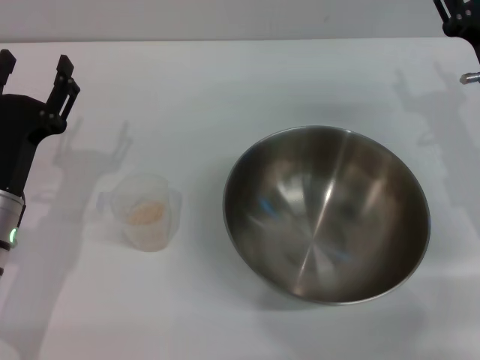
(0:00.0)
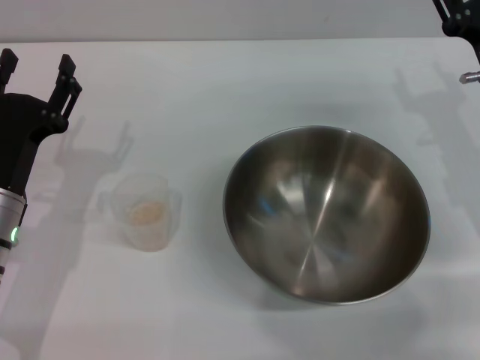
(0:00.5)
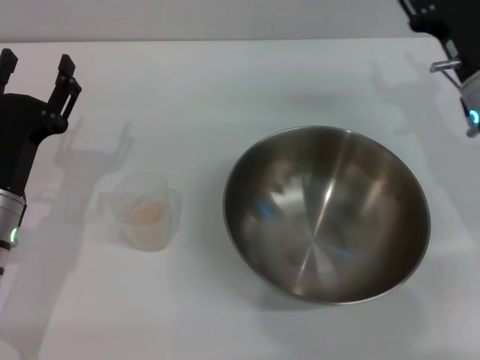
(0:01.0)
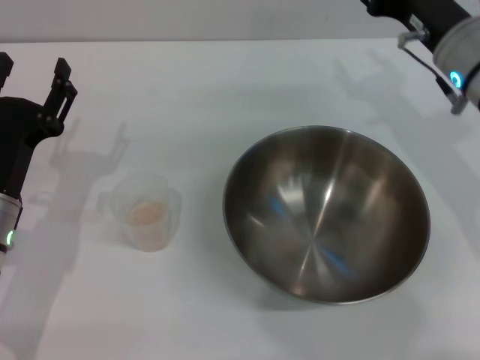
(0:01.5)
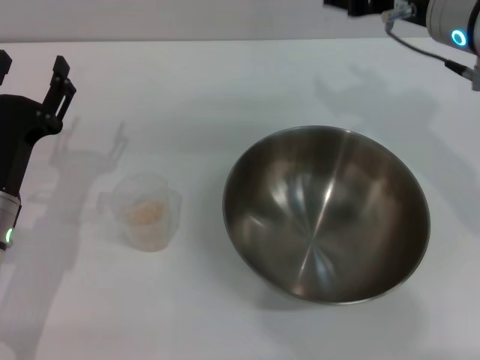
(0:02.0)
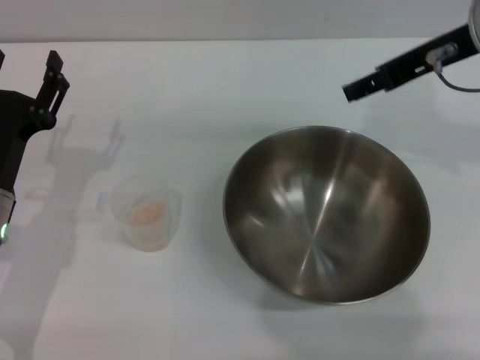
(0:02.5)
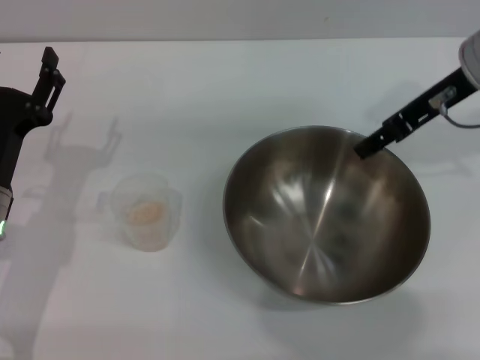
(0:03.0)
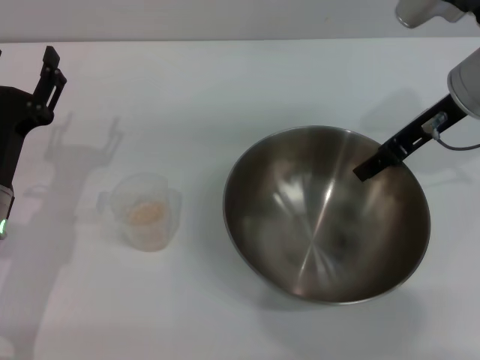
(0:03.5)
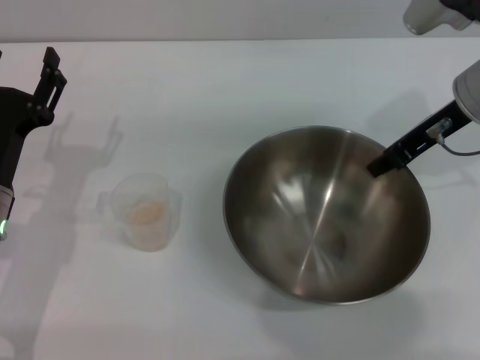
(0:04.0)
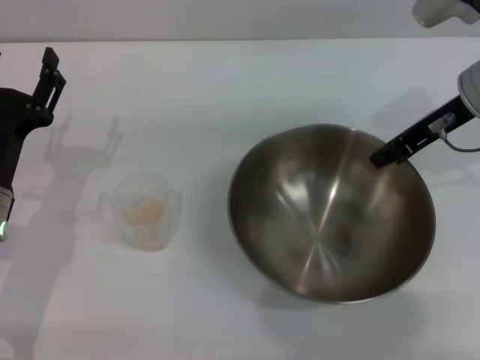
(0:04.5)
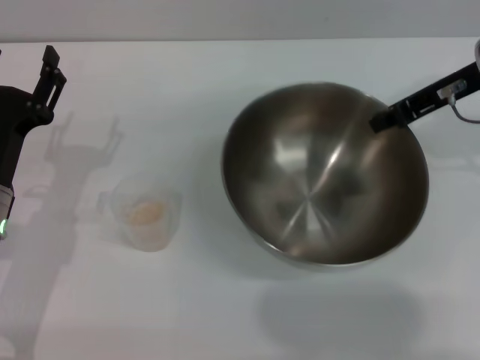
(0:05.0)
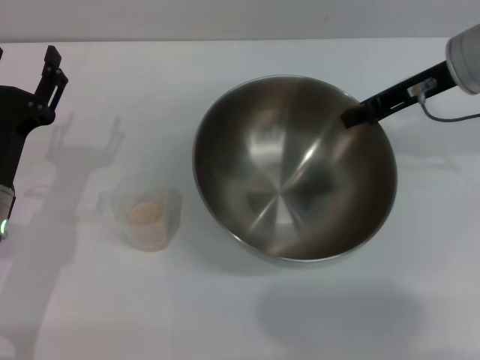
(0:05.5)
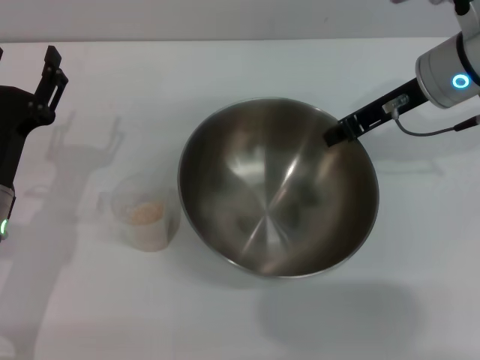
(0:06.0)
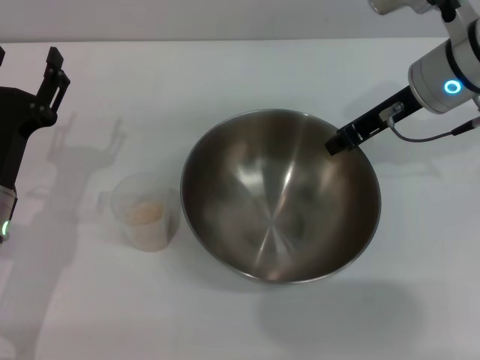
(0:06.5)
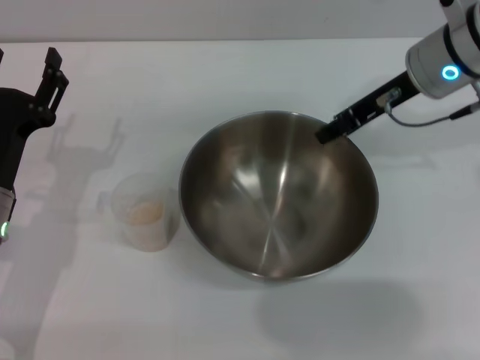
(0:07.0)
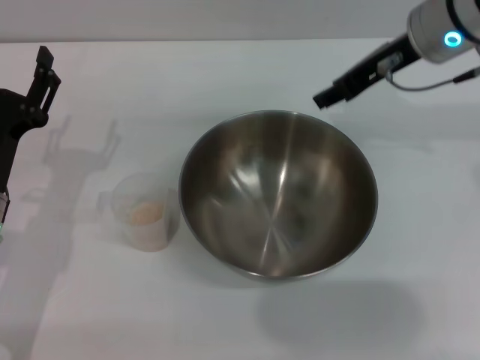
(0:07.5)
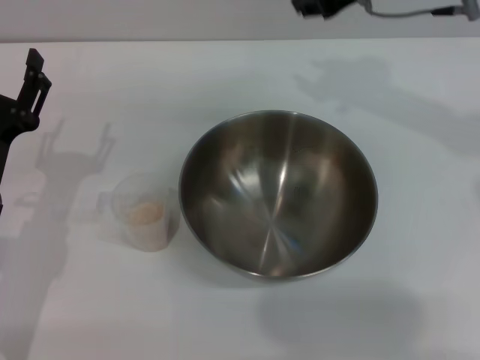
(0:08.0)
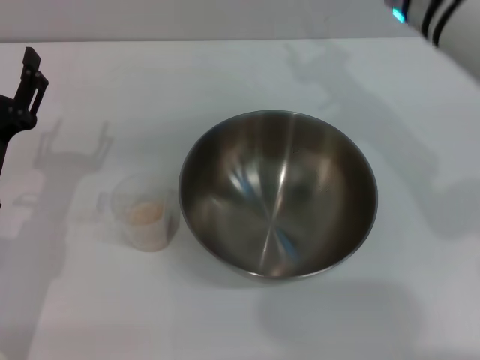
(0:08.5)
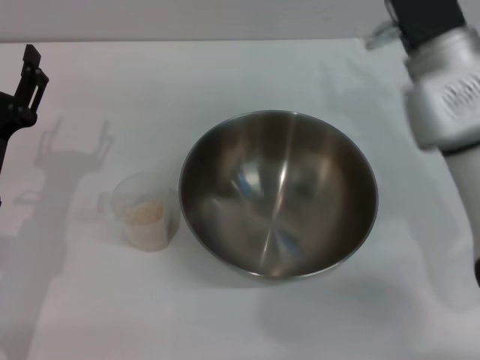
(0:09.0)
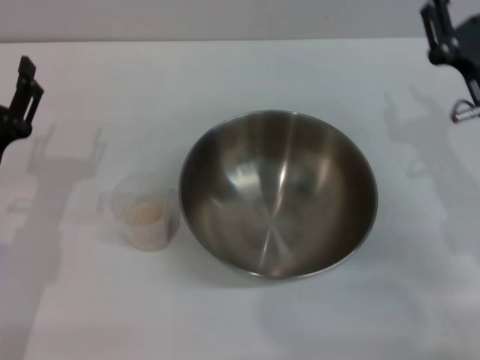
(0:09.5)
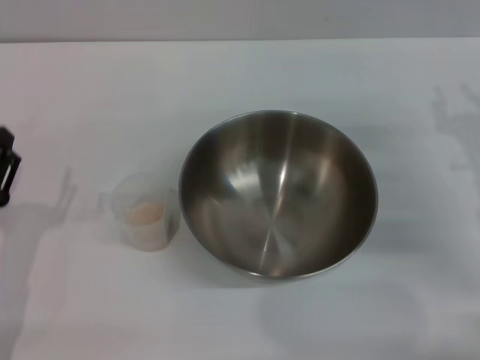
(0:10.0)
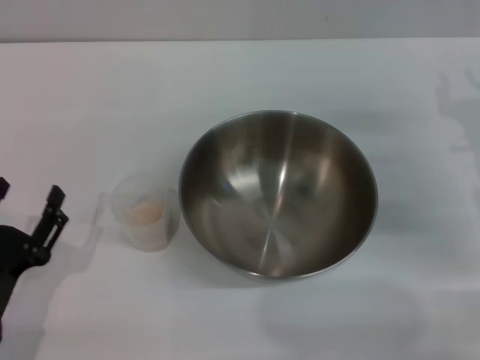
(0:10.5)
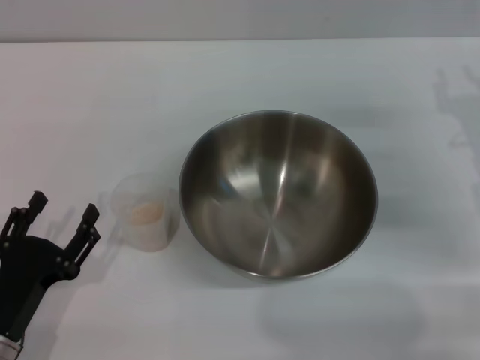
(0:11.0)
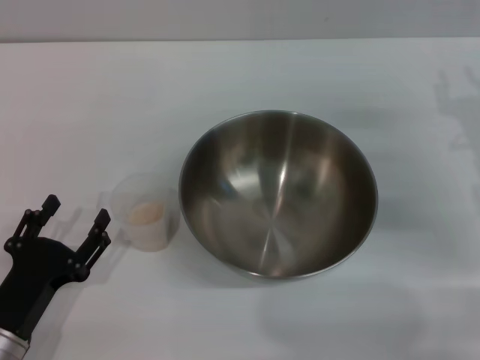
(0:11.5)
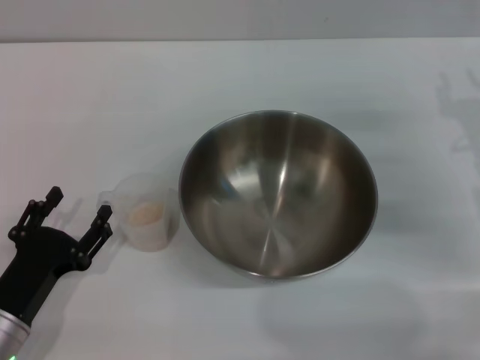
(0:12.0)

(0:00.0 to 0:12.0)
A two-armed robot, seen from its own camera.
Task of the whole recording: Place the bowl in the middle of the table with one hand and pour the rice from the grain cup into it with the other hand.
Step, 0:00.0 - 0:05.0: Pick up the bowl with the right gripper.
Step, 0:05.5 - 0:07.0: Place the bowl in the center of view with the right gripper.
0:00.0 - 0:02.0: The right gripper heads upward and to the left, covering approximately 15 cm.
0:02.0 - 0:04.0: The right gripper is displaced downward by roughly 5 cm, and closes.
0:04.0 - 0:06.0: The right gripper closes.
0:06.0 - 0:08.0: The right gripper shifts roughly 5 cm upward, and opens its fingers.
0:08.0 - 0:10.0: The right gripper shifts approximately 25 cm downward, backward and to the right. Meanwhile the left gripper goes approximately 5 cm backward.

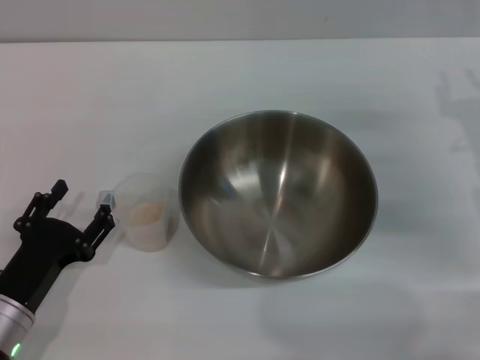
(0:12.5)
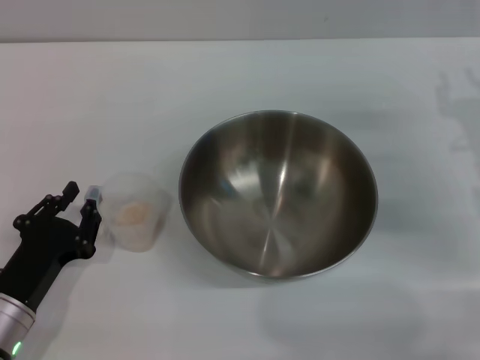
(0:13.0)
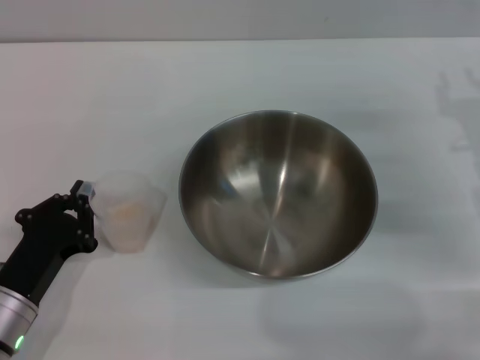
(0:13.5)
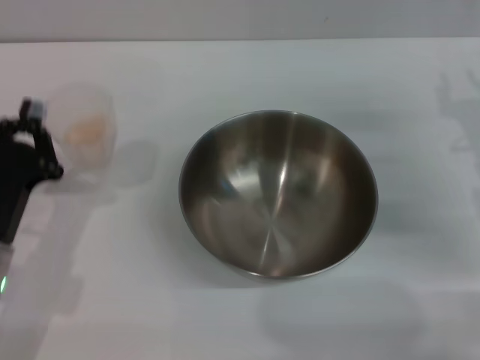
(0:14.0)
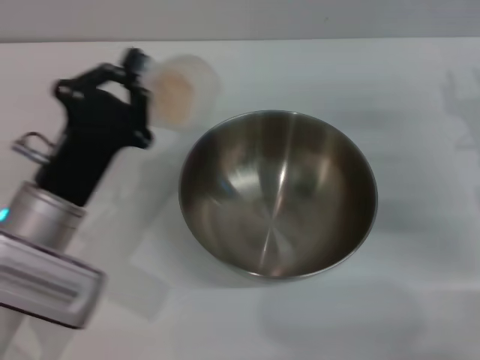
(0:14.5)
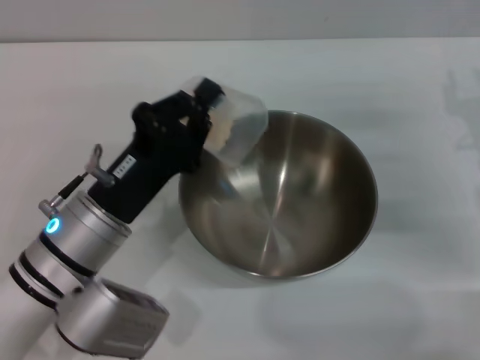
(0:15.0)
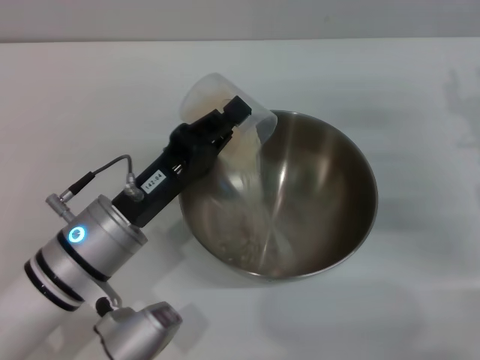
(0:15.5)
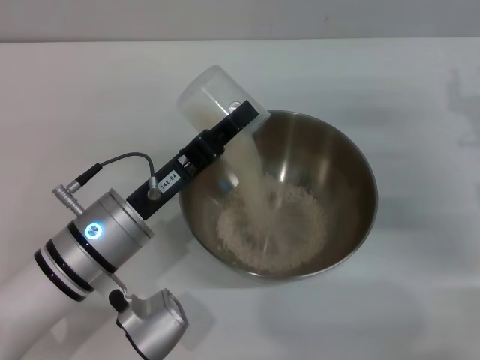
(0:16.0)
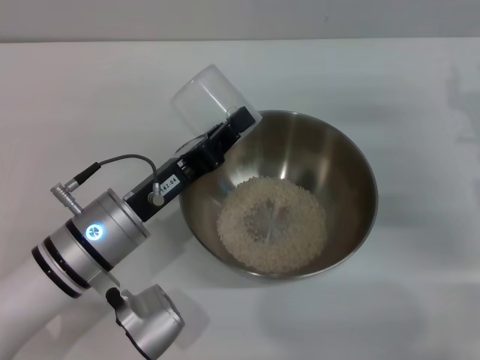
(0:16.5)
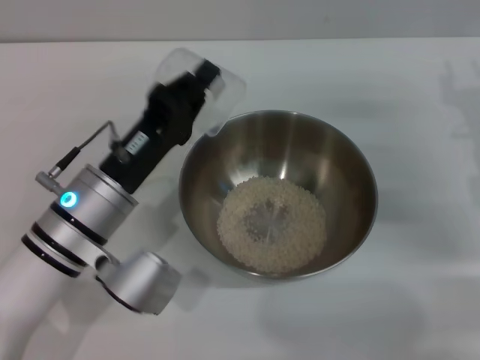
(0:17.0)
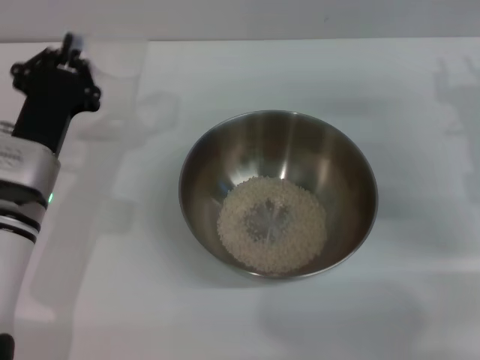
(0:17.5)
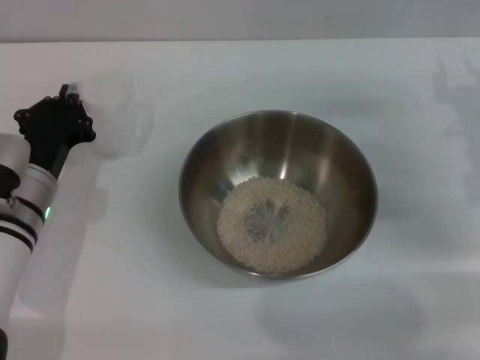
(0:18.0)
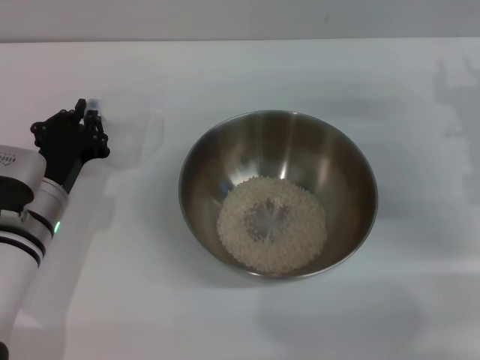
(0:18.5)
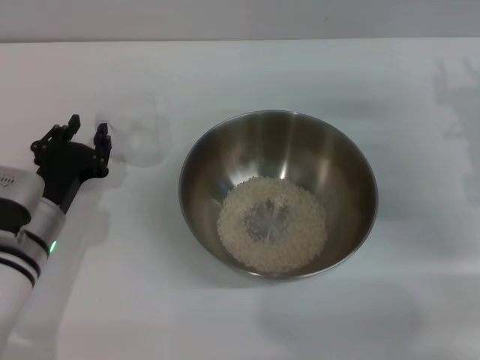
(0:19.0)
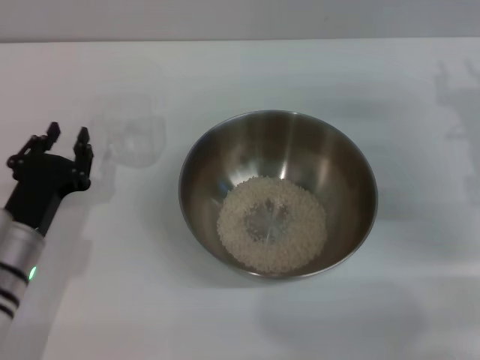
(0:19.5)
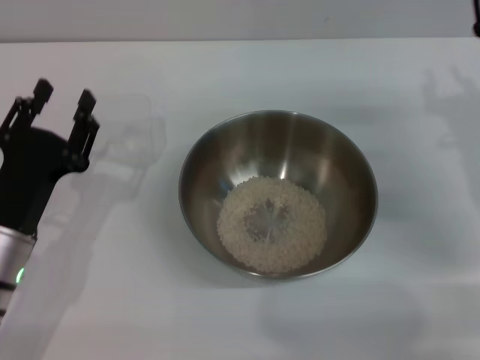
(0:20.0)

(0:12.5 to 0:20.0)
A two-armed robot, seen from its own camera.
Task of the whole recording: Place the bowl in the middle of the table with one hand and pour the rice from the grain cup into it with the other hand.
Step, 0:14.5 - 0:16.0: Pour the rice from the cup into the bowl with the left gripper.
Step, 0:16.5 - 0:19.5: Place the cup on the table with the left gripper.
0:12.5 - 0:14.5: The left gripper goes roughly 10 cm upward, forward and to the right, and closes up.
0:14.5 - 0:16.5: The left gripper is displaced to the right by about 5 cm.
0:16.5 - 0:18.0: The left gripper moves to the left, roughly 5 cm.
0:18.0 - 0:20.0: The left gripper moves backward, approximately 10 cm, and opens its fingers.
